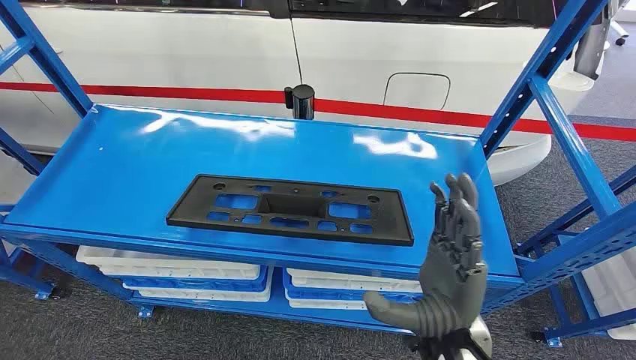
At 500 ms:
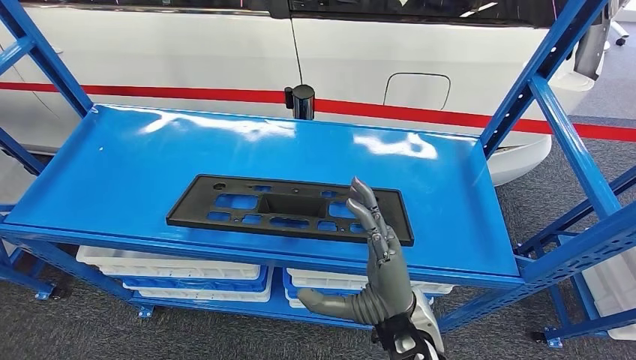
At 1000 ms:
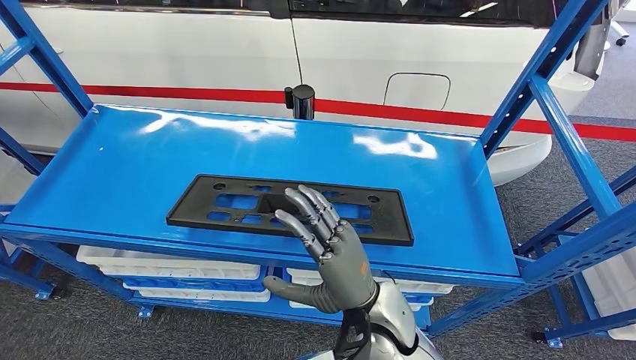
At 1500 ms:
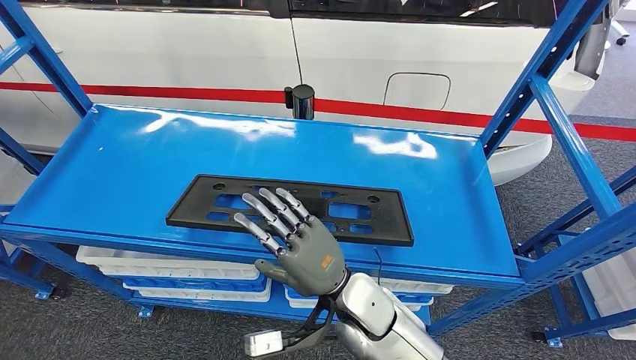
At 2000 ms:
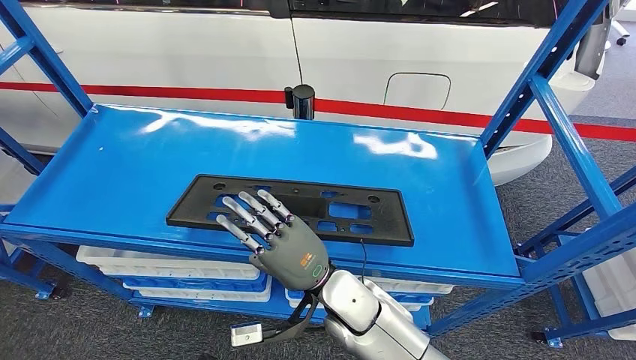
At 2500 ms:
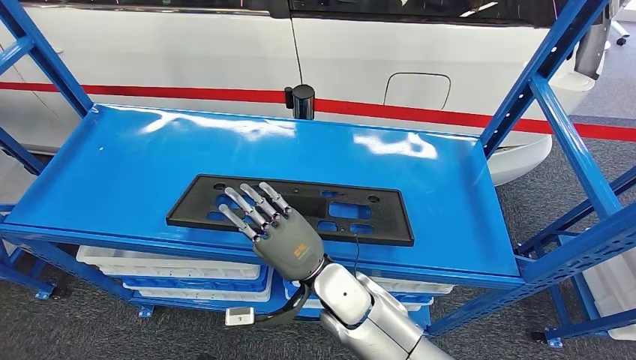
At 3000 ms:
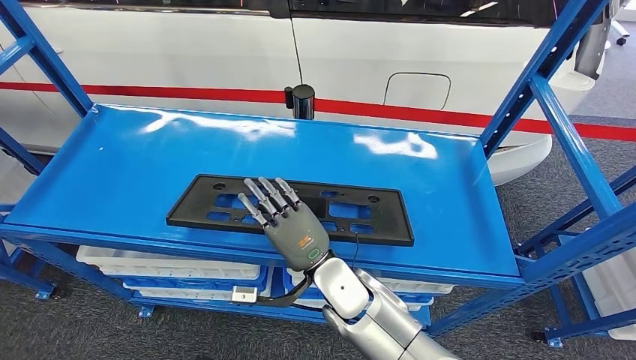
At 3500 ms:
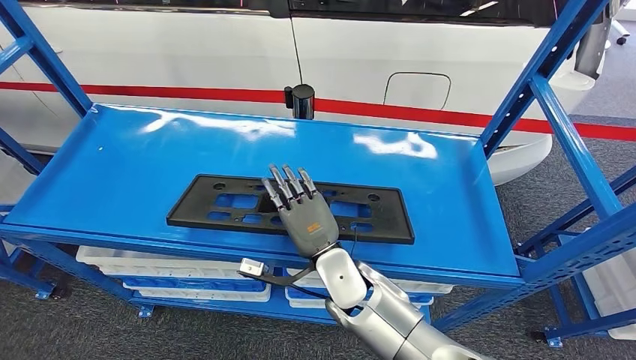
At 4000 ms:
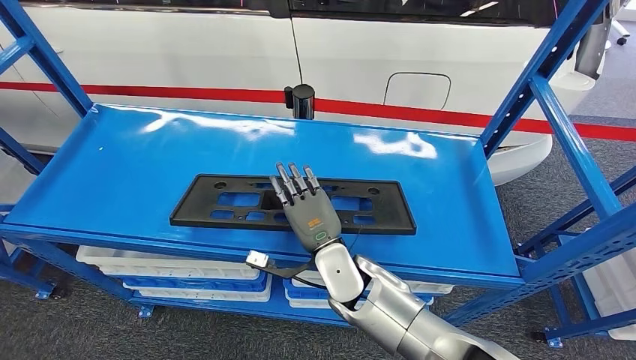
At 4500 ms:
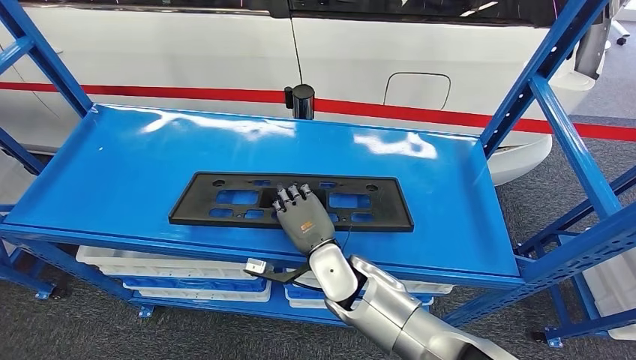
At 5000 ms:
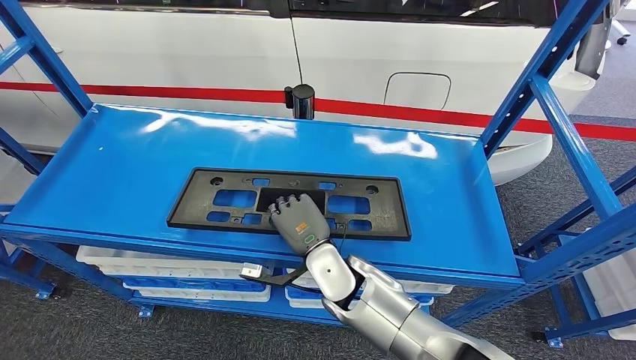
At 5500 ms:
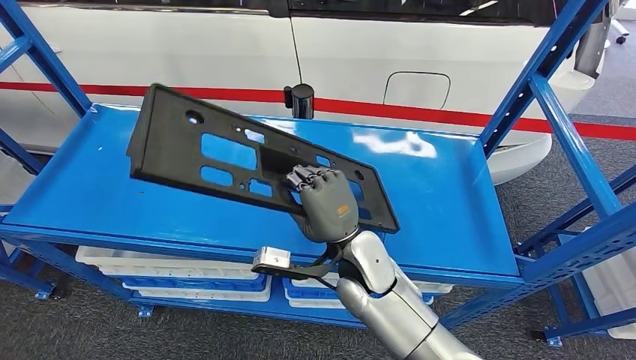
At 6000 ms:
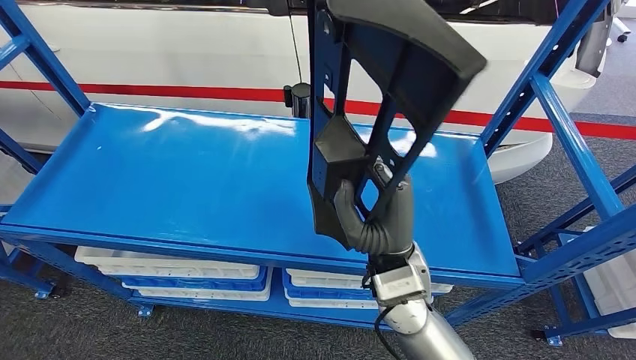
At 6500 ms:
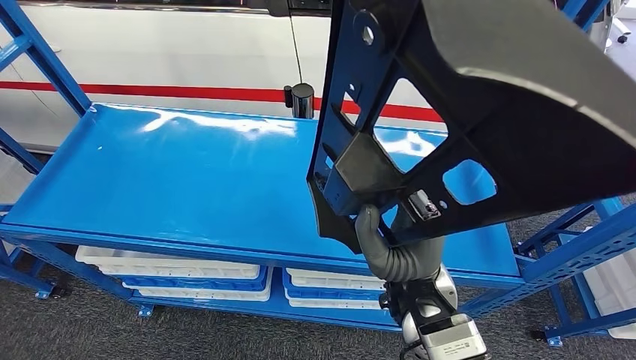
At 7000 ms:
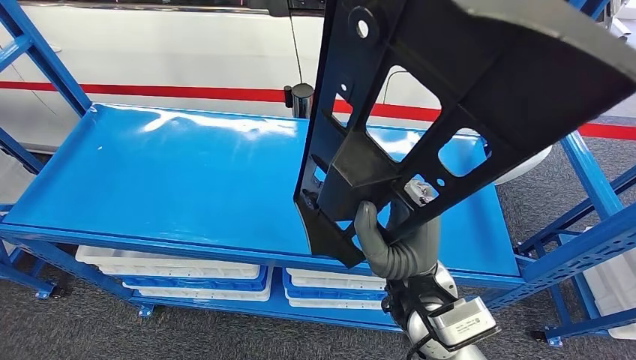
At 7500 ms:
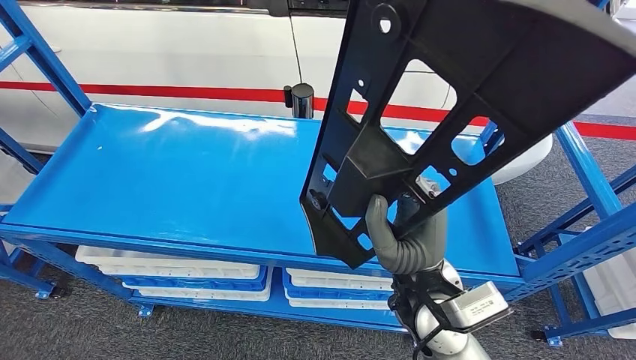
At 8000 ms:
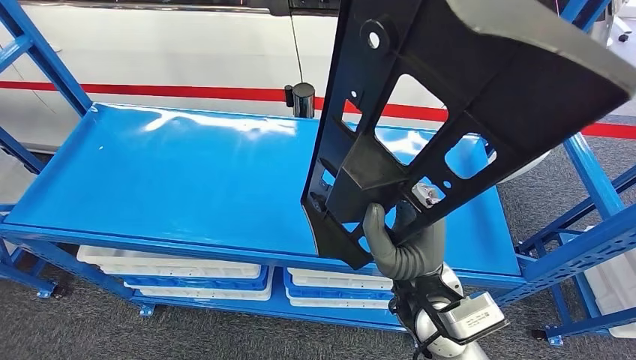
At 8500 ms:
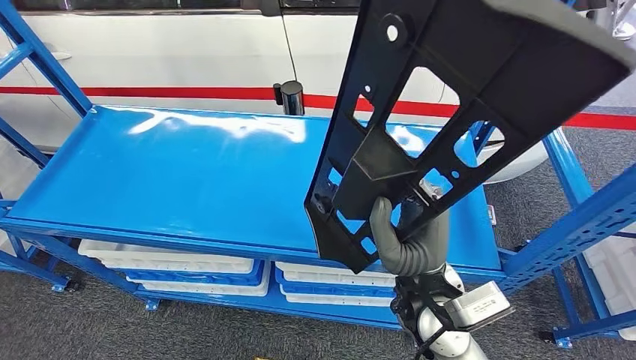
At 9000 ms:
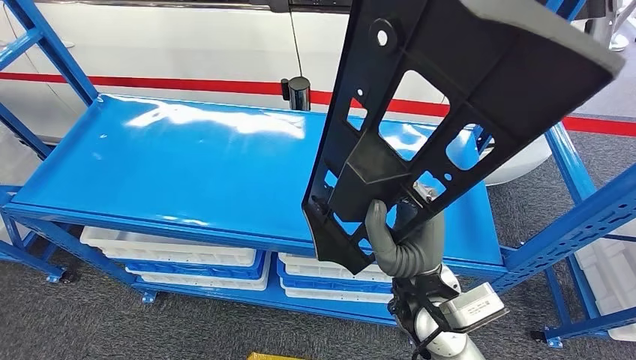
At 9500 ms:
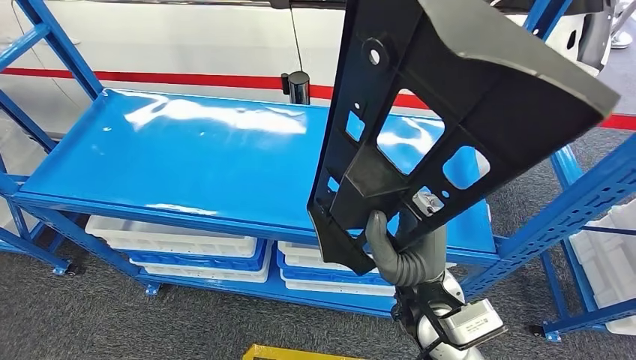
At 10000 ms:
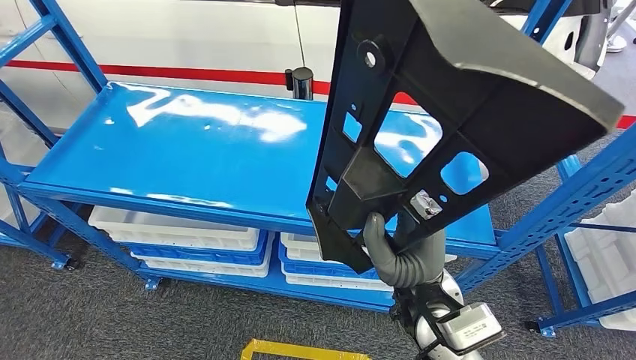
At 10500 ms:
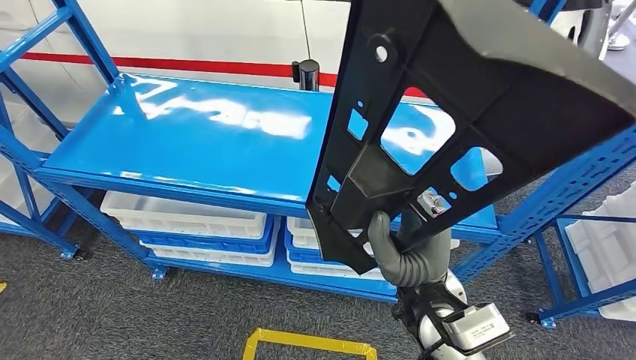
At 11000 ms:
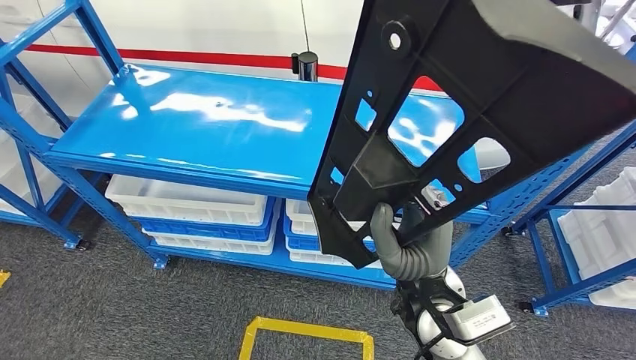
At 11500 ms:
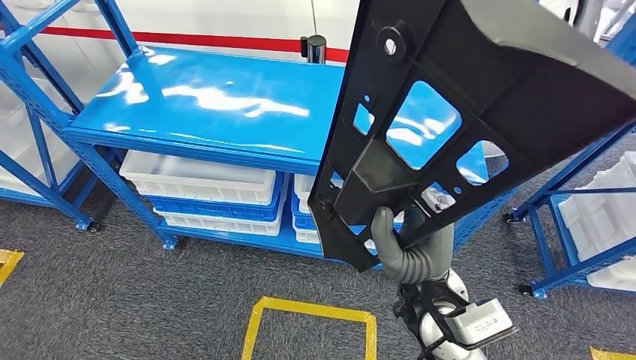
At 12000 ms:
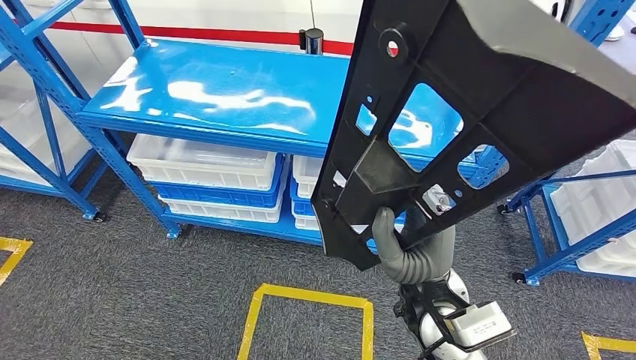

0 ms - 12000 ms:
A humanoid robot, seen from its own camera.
Step, 0 ms - 10500 ms: Pick up the large material from the shelf.

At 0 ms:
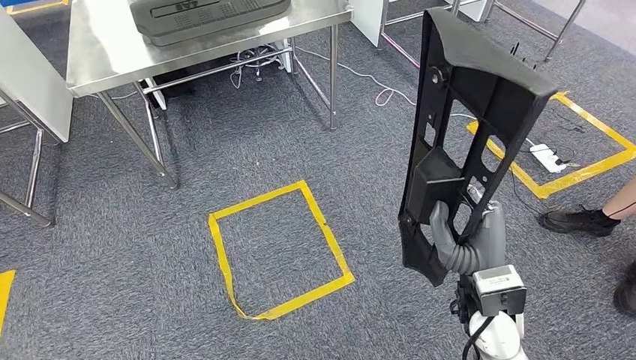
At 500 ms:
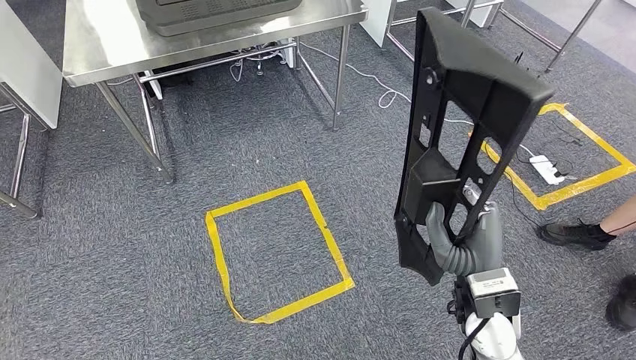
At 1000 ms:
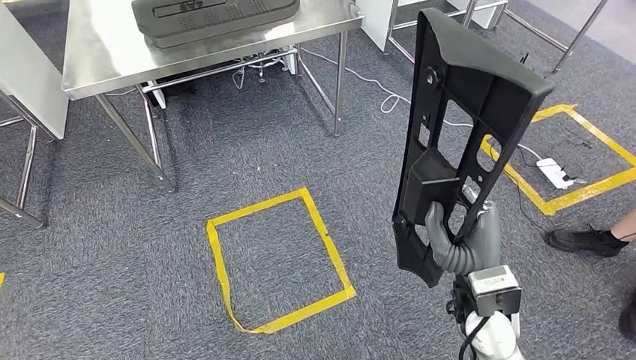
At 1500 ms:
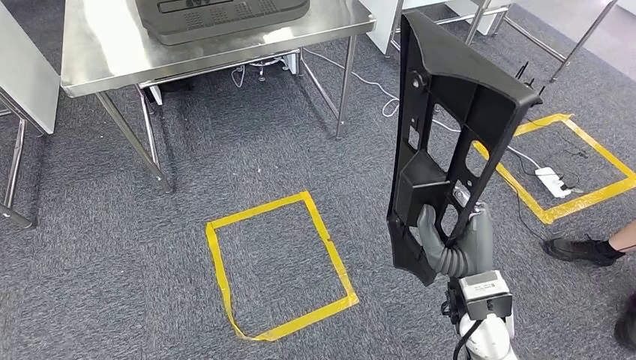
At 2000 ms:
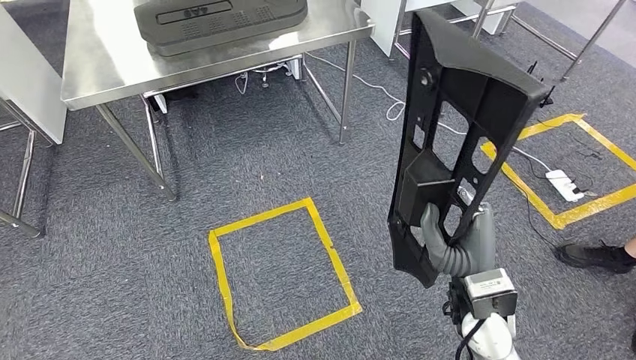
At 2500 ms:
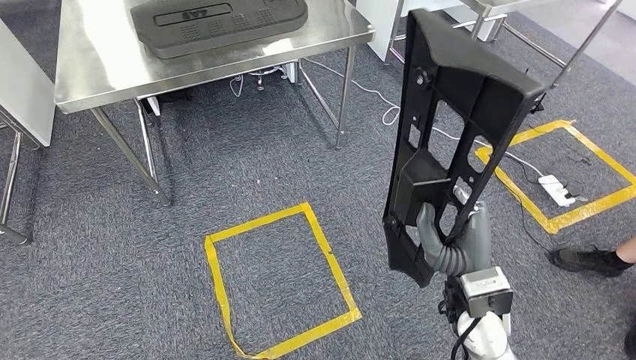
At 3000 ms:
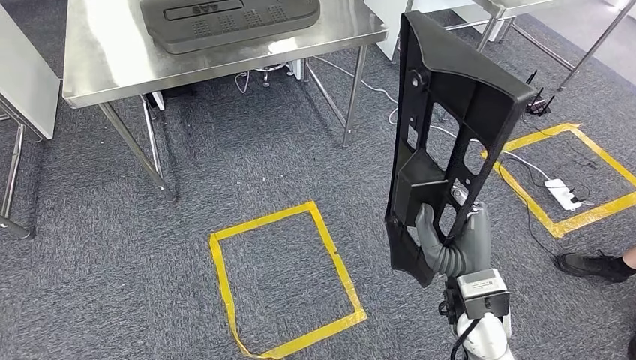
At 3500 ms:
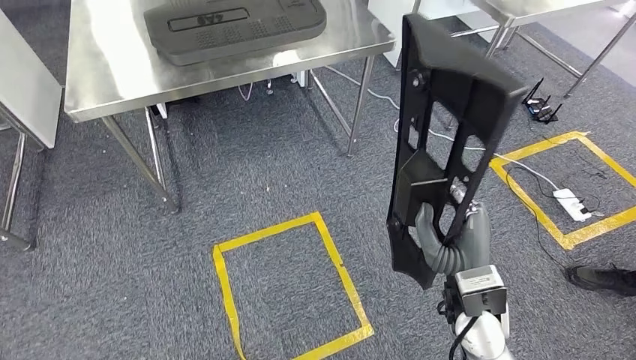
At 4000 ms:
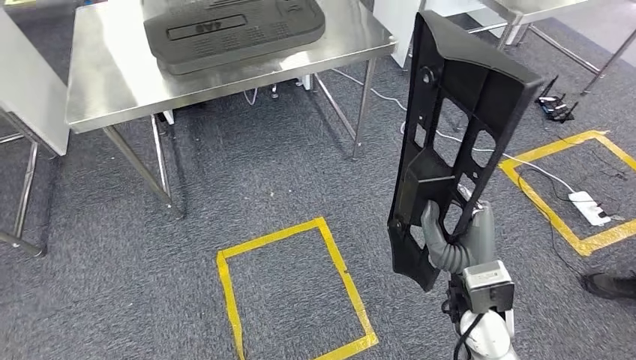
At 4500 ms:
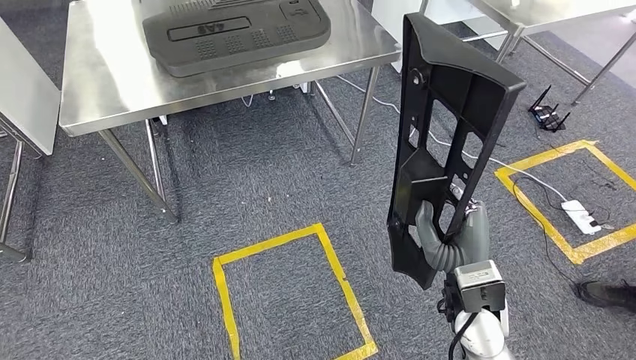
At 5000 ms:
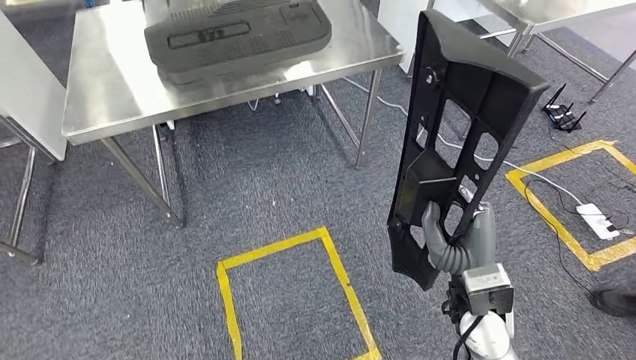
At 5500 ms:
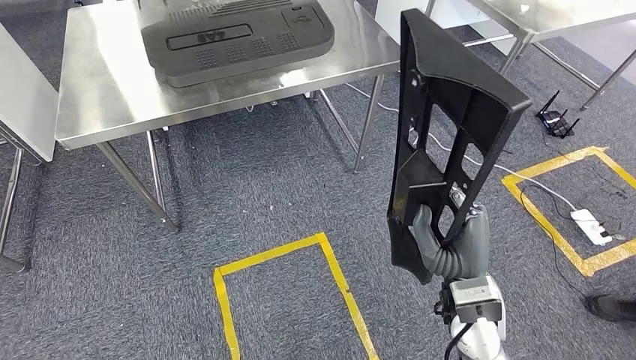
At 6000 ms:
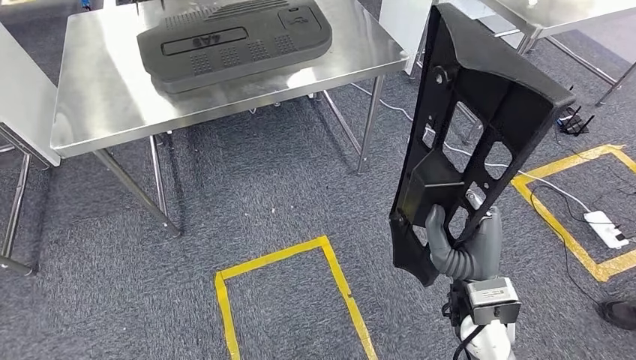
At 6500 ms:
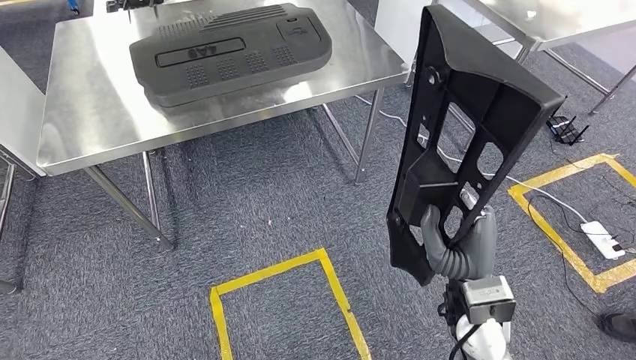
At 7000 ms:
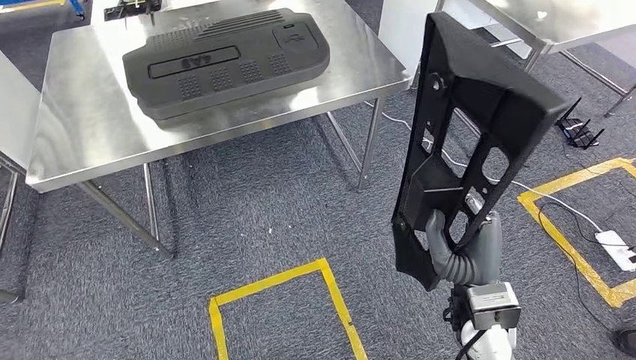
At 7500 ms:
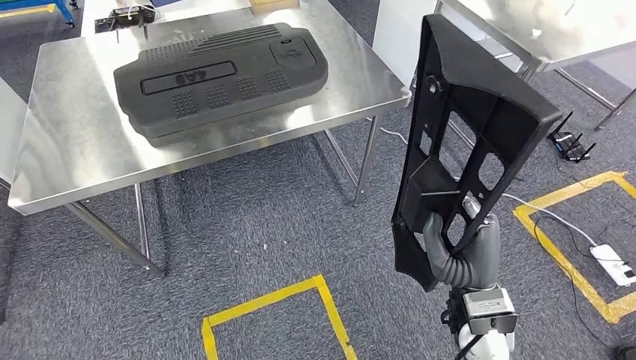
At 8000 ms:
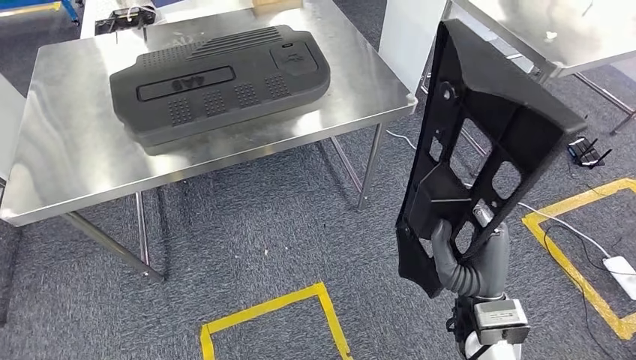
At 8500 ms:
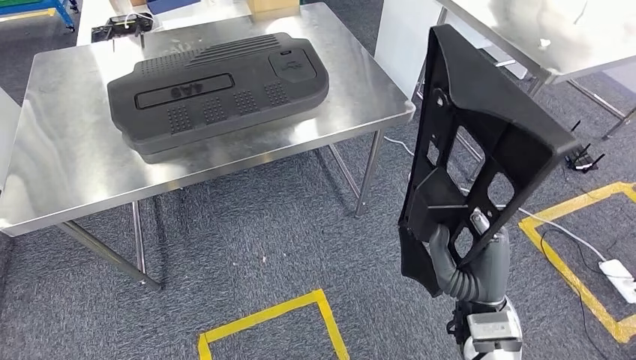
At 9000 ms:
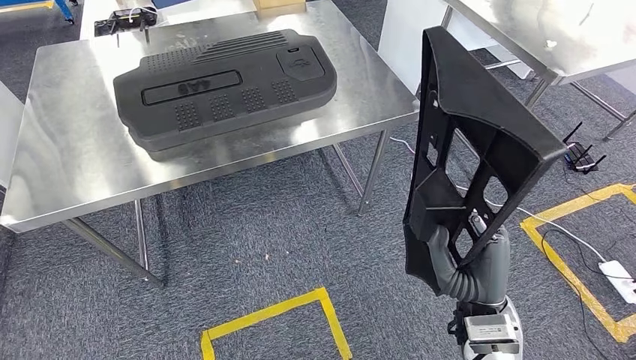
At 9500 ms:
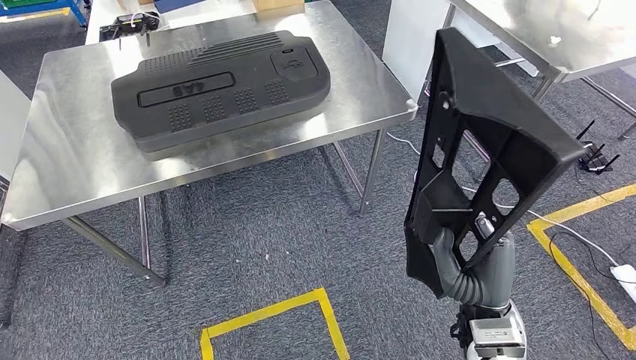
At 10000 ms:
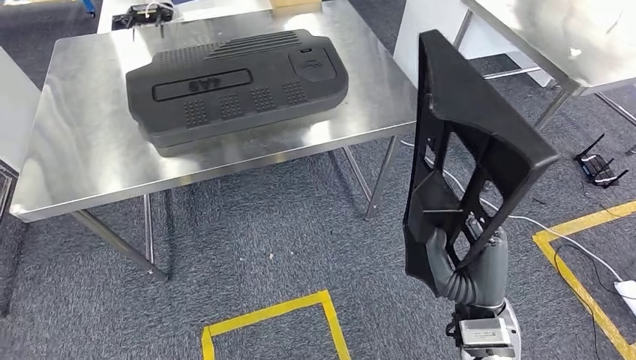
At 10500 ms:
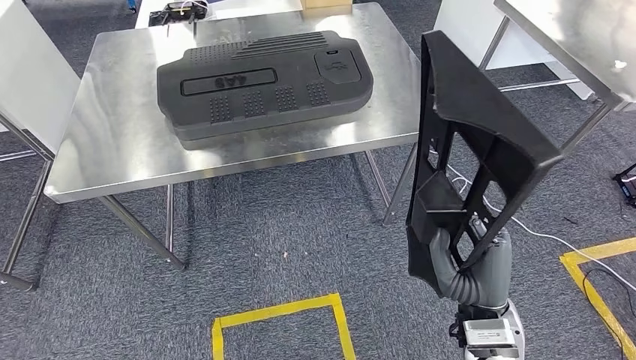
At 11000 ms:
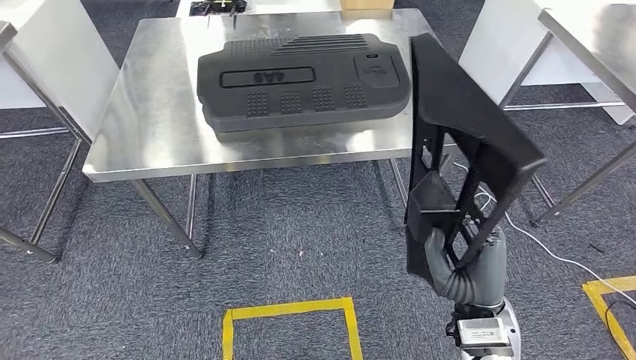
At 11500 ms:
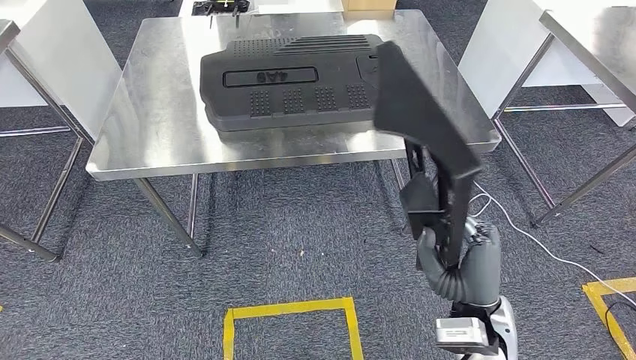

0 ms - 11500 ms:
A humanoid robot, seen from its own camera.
Step, 0 ms - 4500 ms: Move the large material to the workbench.
